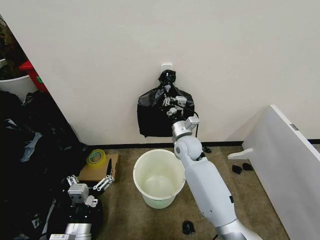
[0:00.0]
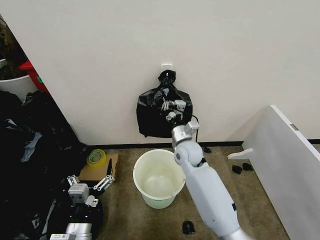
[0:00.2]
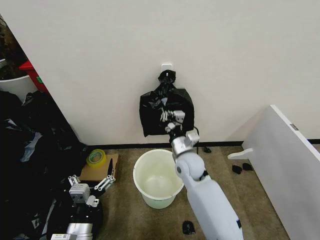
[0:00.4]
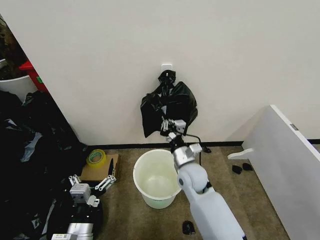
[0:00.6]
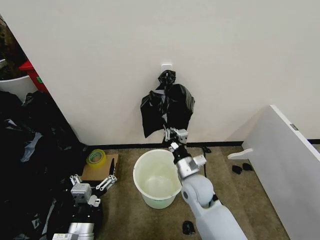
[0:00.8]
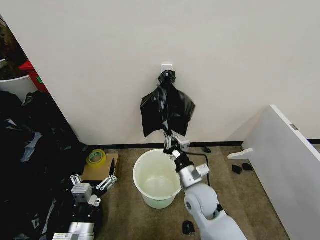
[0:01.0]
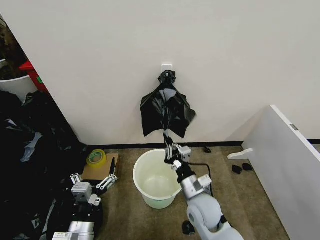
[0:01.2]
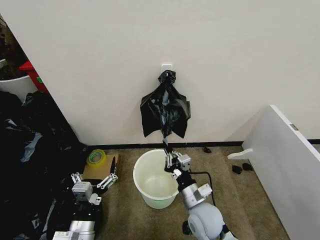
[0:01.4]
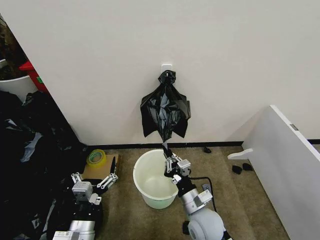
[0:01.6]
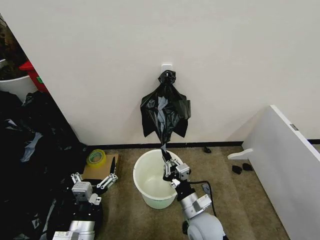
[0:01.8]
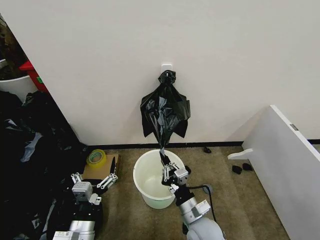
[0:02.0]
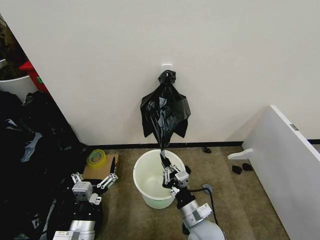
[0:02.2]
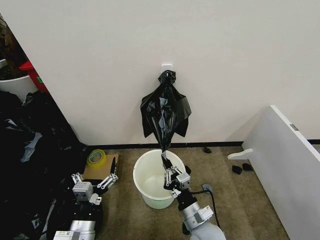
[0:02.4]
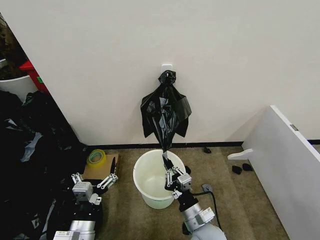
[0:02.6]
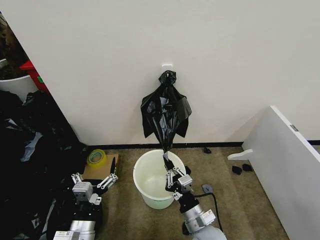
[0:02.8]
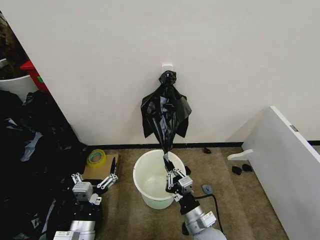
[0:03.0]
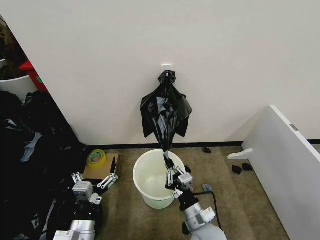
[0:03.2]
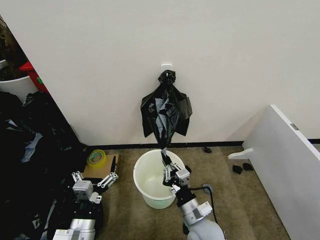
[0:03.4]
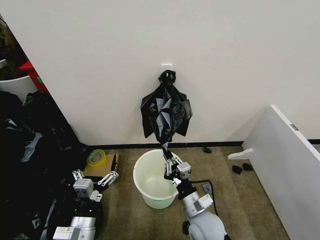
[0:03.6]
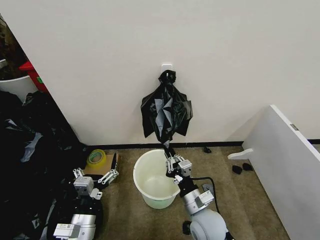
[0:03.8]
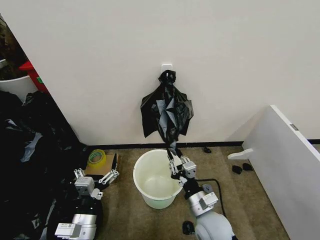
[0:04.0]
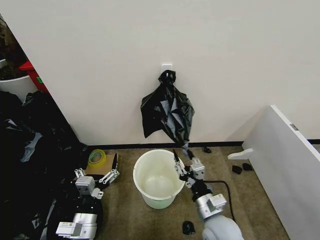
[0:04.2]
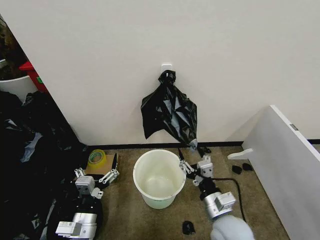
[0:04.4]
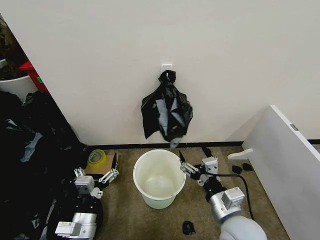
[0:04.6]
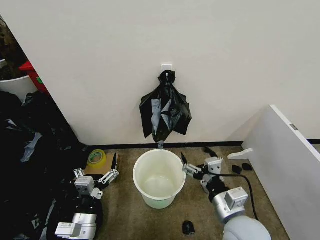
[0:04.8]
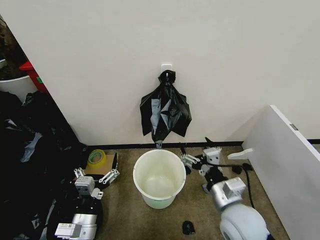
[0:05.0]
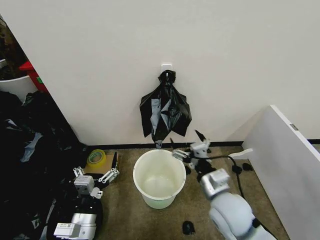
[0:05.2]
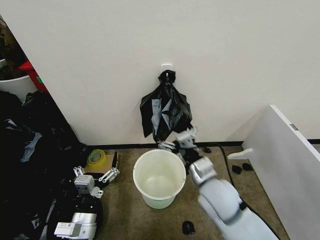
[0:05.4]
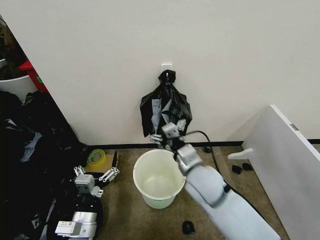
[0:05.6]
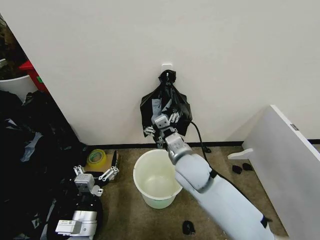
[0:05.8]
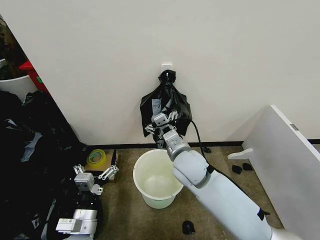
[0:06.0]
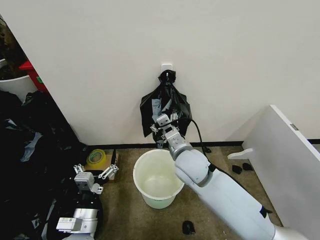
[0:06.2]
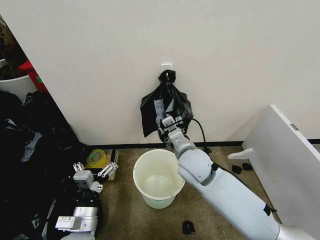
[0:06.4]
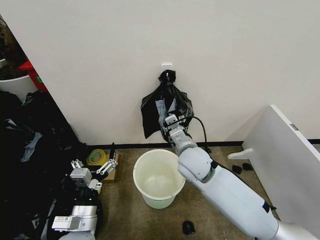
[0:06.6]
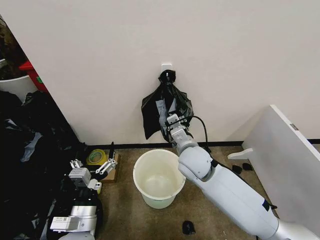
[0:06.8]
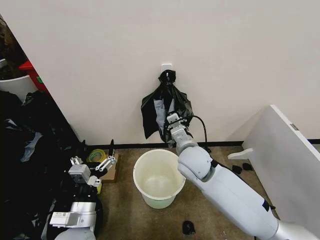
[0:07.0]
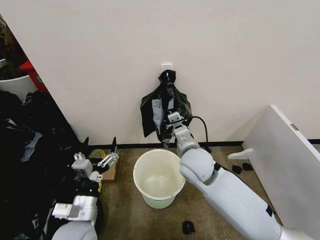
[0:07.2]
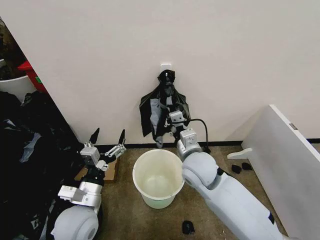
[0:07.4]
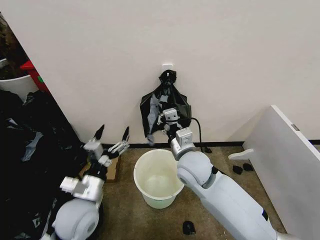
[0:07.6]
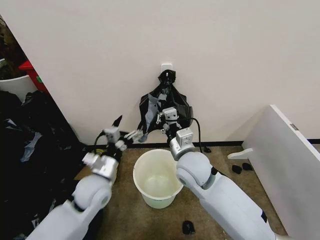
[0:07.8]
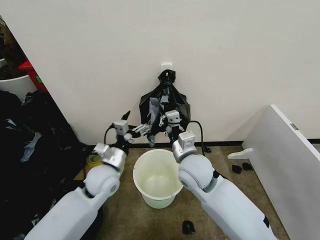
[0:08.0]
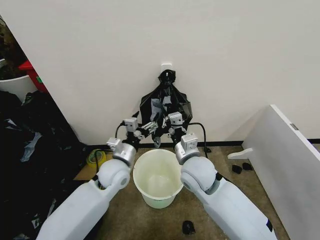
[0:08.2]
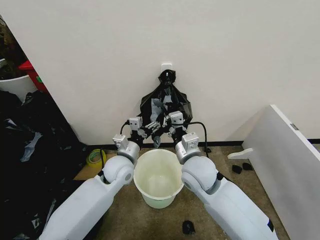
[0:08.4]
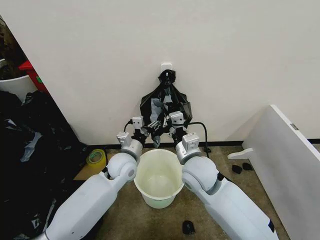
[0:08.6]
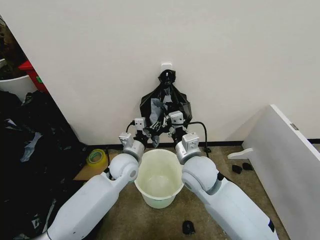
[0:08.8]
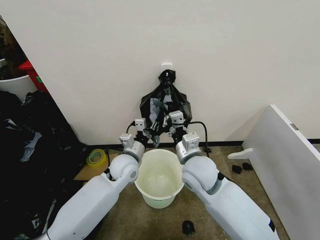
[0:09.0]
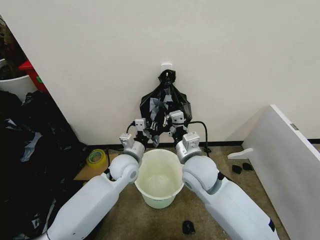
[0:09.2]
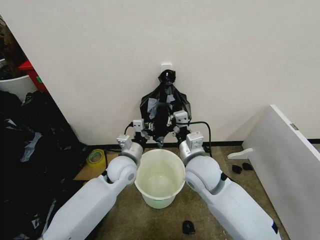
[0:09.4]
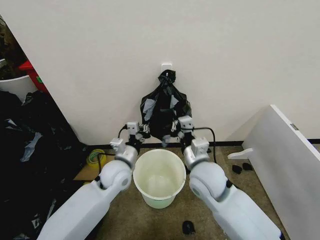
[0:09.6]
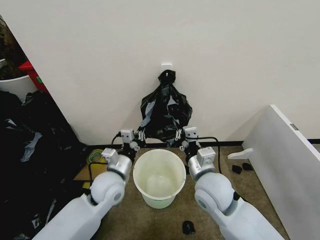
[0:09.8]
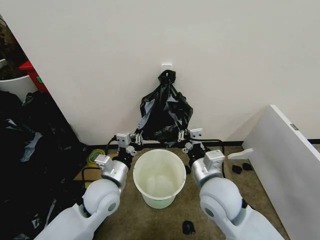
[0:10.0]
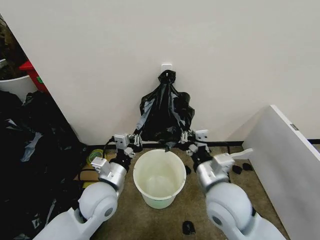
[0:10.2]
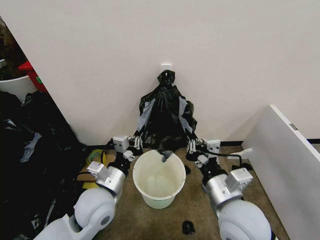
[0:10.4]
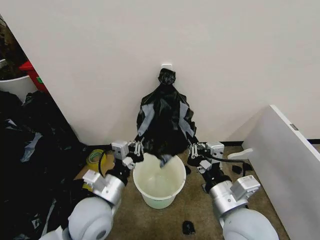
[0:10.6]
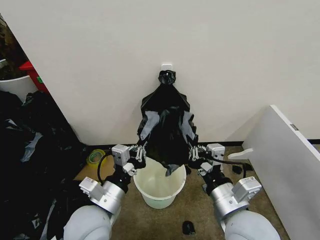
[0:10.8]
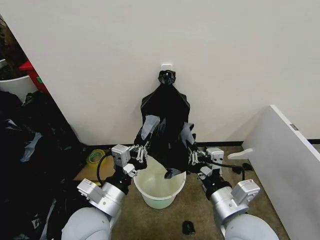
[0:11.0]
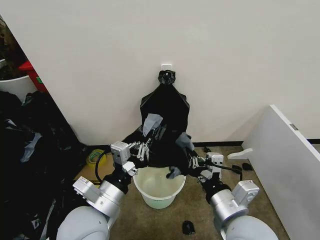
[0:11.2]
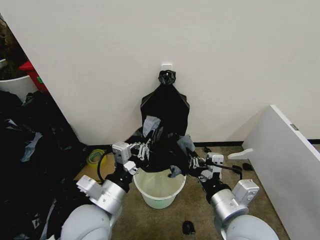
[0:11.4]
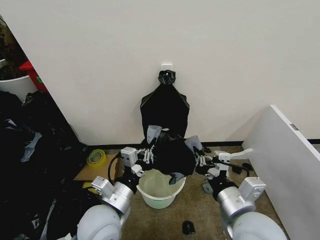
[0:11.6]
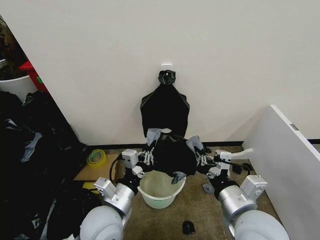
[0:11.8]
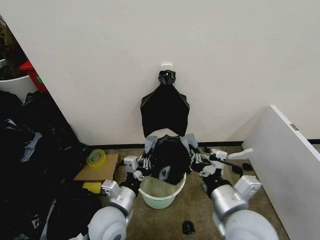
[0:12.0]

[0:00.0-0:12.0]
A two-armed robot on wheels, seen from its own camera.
Task of the whole recording: Place the garbage bag over the trash bin.
0:00.0 to 0:01.6: The right gripper moves backward, about 20 cm.
0:01.6 to 0:03.0: The right gripper goes roughly 5 cm backward.
0:03.0 to 0:04.4: The right gripper travels upward and to the right by approximately 10 cm, and opens.
0:04.4 to 0:06.0: The right gripper goes roughly 20 cm forward, to the left and upward.
0:06.0 to 0:07.6: The left gripper goes some 10 cm forward and upward; the right gripper closes.
0:07.6 to 0:09.0: The left gripper is displaced forward and to the right by roughly 15 cm, and closes its fingers.
0:09.0 to 0:10.4: The right gripper moves backward and to the right, some 15 cm, while the left gripper moves backward, roughly 15 cm, and closes its fingers.
0:10.4 to 0:12.0: The left gripper ends up approximately 5 cm from where it was.

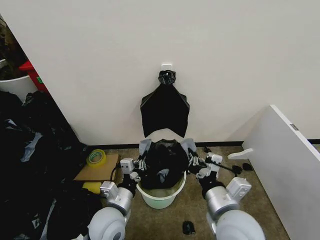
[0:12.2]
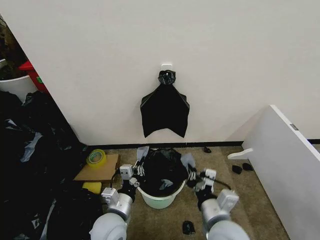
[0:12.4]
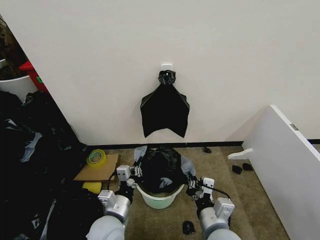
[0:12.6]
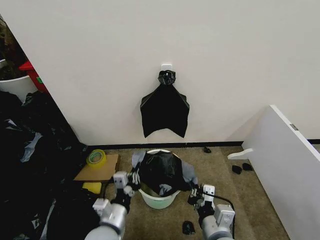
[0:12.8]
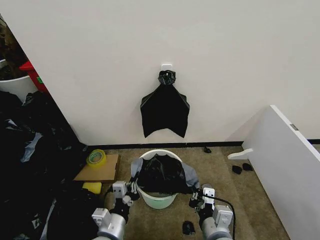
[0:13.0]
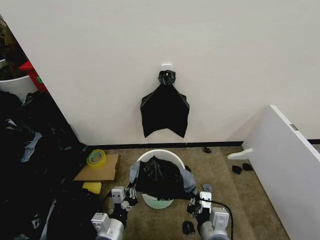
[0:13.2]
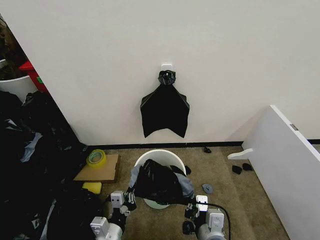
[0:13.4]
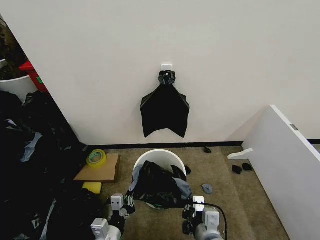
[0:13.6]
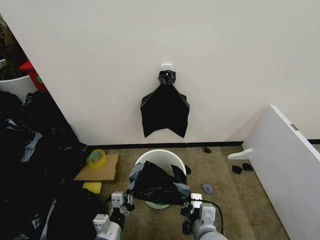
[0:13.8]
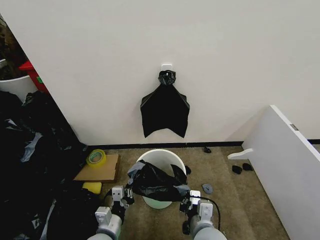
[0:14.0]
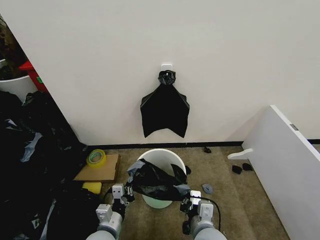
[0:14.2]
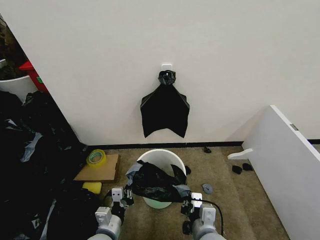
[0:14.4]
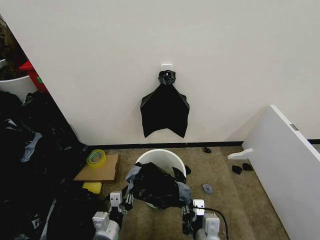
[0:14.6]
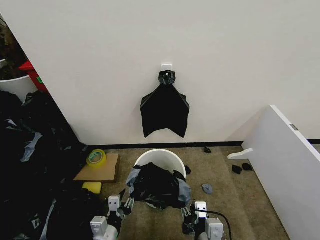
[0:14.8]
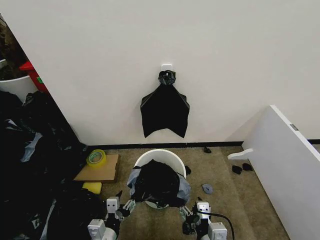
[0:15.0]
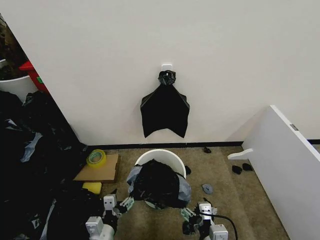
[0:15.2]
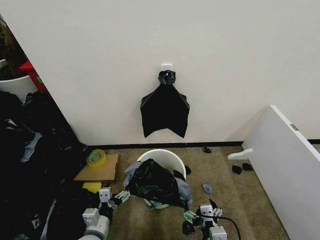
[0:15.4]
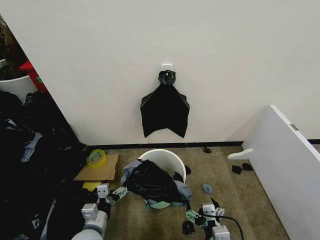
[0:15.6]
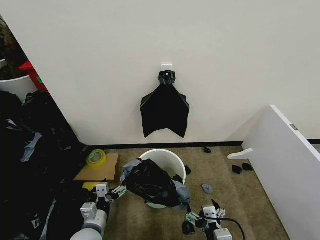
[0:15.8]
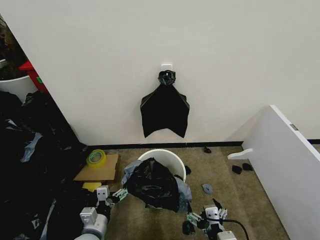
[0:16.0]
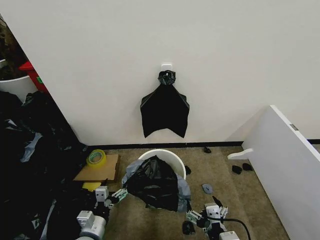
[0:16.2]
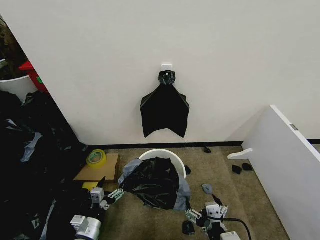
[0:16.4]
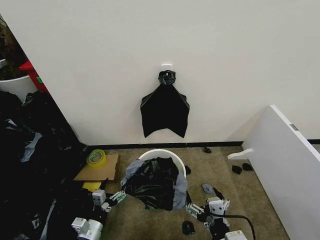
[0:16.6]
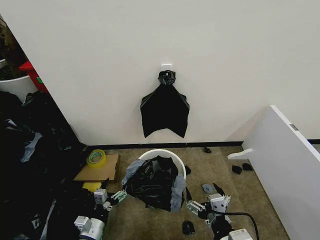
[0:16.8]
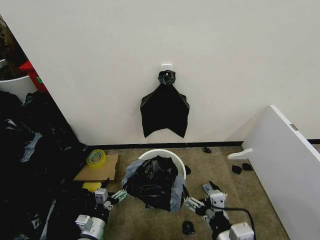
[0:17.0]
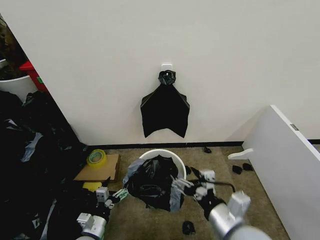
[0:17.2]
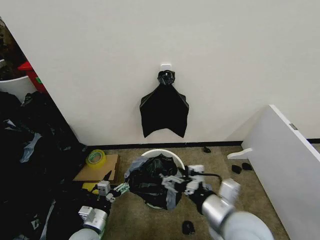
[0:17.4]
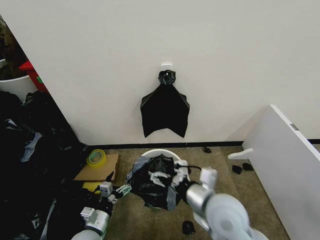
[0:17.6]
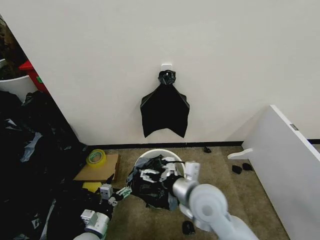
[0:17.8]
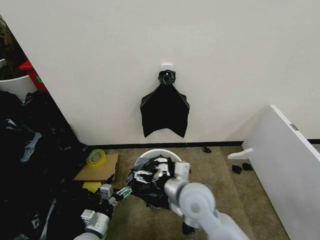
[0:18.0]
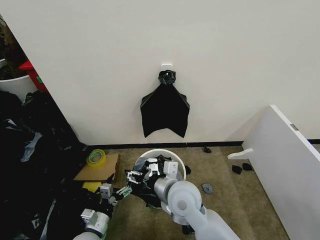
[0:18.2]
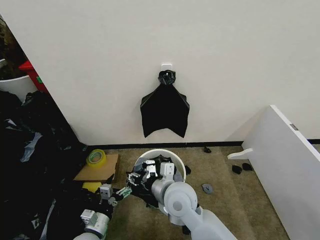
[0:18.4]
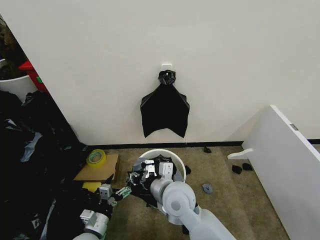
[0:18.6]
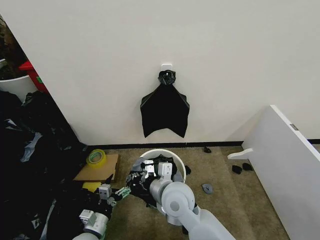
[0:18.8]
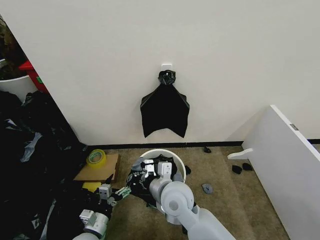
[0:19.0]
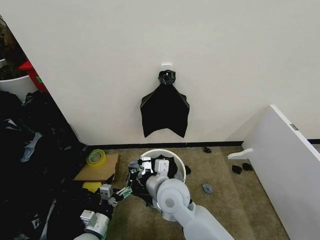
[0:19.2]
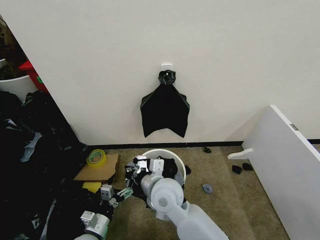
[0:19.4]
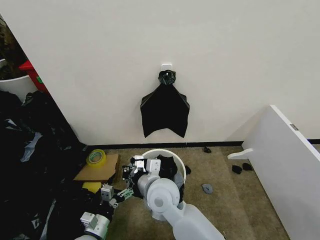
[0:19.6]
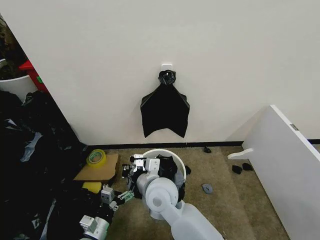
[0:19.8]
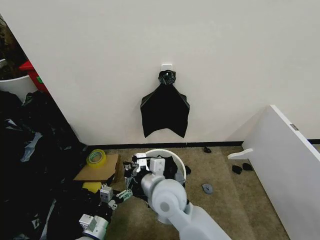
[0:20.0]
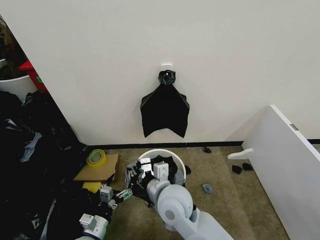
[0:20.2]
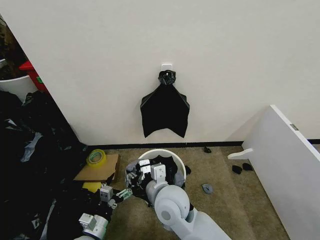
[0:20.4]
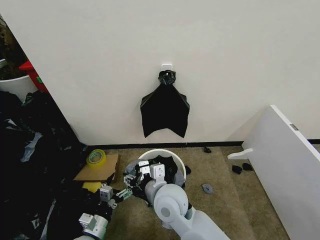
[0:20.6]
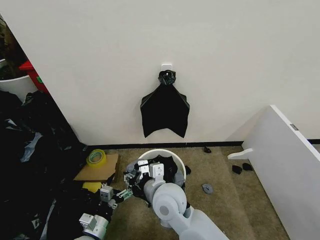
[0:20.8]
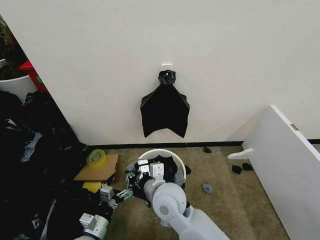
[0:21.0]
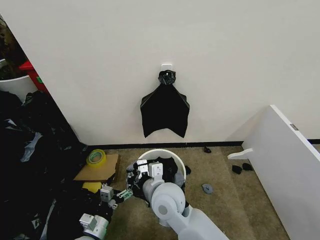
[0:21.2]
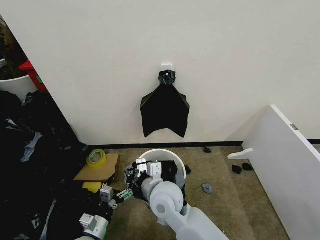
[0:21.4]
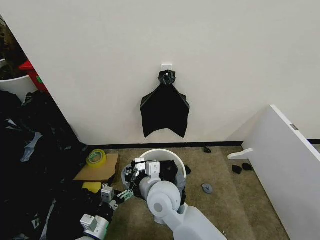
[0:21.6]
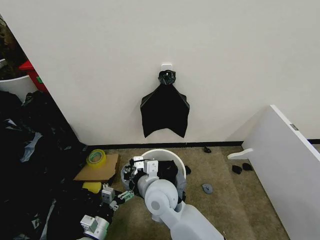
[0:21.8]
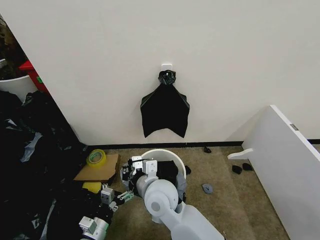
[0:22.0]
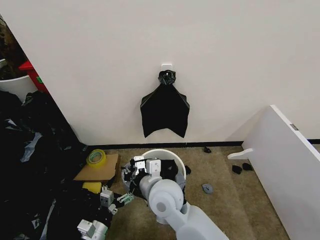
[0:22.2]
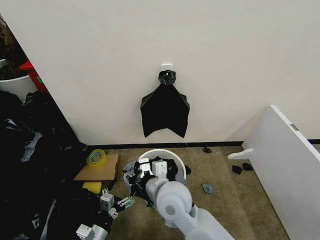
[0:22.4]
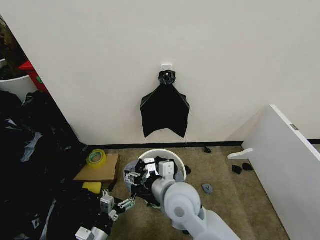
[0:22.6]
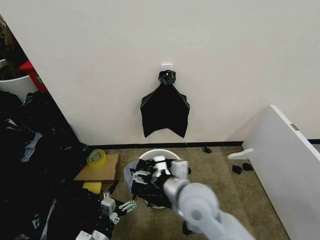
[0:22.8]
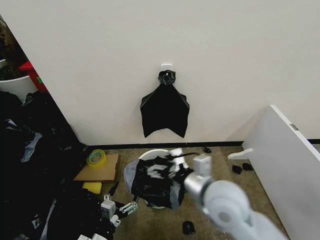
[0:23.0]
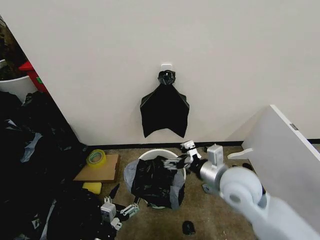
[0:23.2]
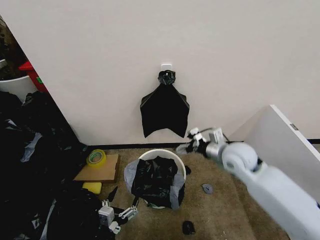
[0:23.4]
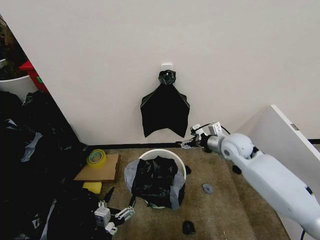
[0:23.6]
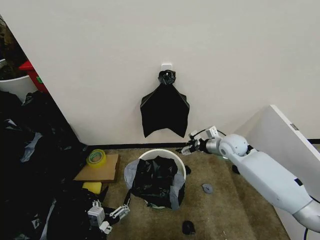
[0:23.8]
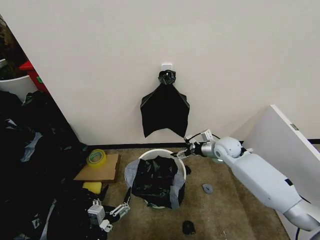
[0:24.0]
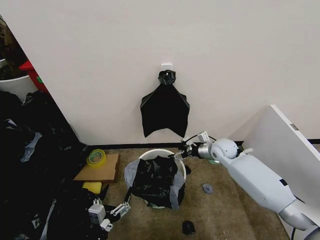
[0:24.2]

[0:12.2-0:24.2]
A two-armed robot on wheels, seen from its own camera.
Task of the whole recording: Place the garbage bag over the trash bin.
0:12.2 to 0:13.8: The right gripper goes some 10 cm downward; the left gripper heads backward and downward, covering about 10 cm.
0:13.8 to 0:15.2: The left gripper opens its fingers, while the right gripper ends up about 5 cm from where it was, and opens.
0:15.2 to 0:16.6: The left gripper travels to the left by about 5 cm. The right gripper goes some 5 cm upward.
0:16.6 to 0:18.2: The right gripper shifts about 20 cm forward and to the left.
0:18.2 to 0:19.8: The right gripper goes some 5 cm to the left, and closes up.
0:19.8 to 0:21.2: The right gripper opens, then closes once more.
0:21.2 to 0:22.6: The right gripper opens its fingers.
0:22.6 to 0:24.2: The right gripper is displaced forward and to the right by some 30 cm. Meanwhile the left gripper ends up some 5 cm from where it was.
